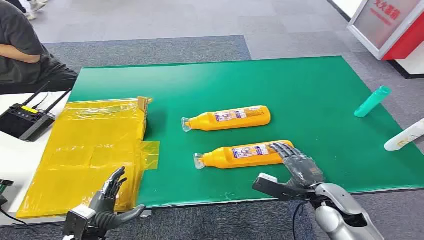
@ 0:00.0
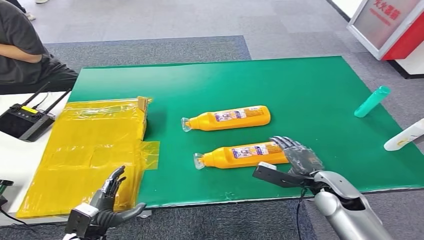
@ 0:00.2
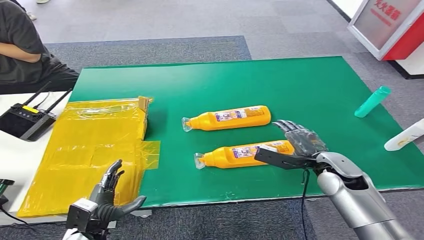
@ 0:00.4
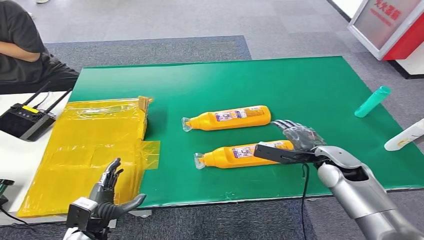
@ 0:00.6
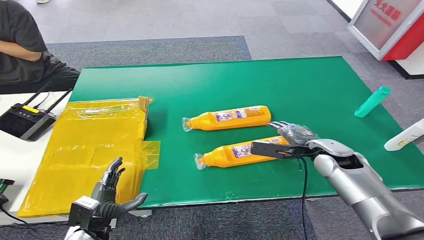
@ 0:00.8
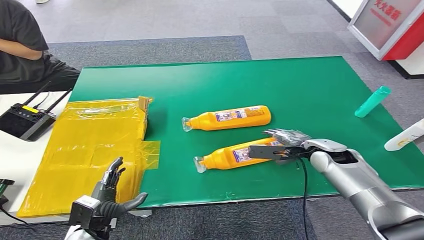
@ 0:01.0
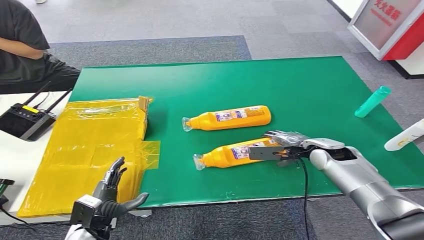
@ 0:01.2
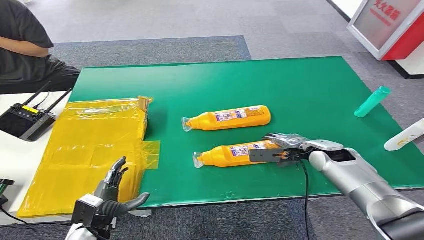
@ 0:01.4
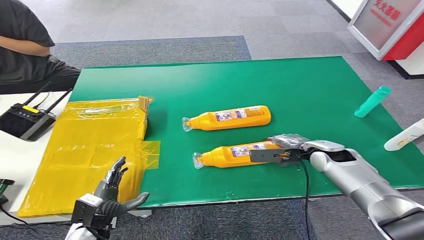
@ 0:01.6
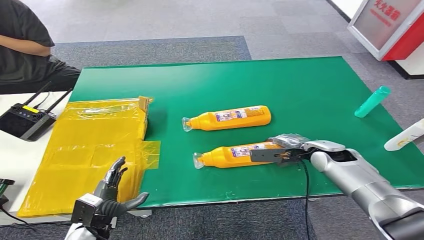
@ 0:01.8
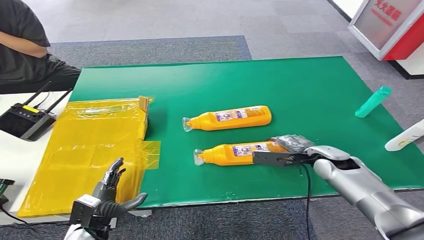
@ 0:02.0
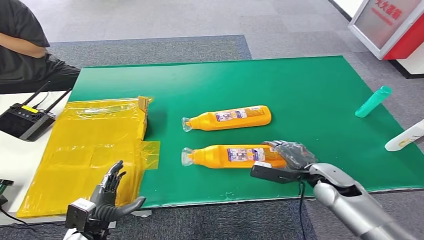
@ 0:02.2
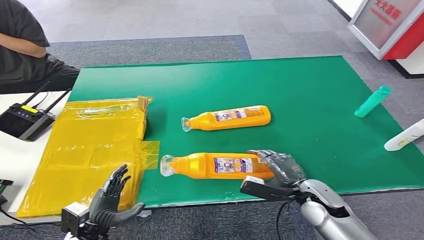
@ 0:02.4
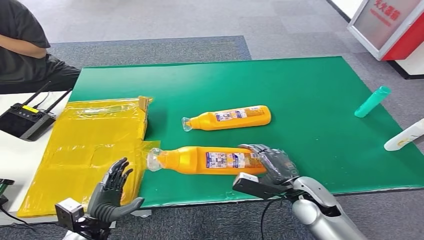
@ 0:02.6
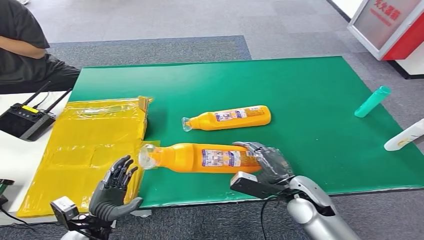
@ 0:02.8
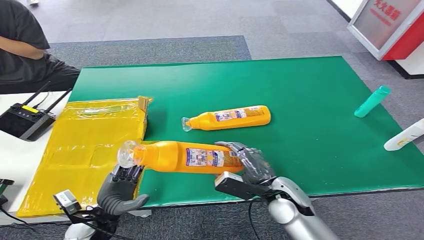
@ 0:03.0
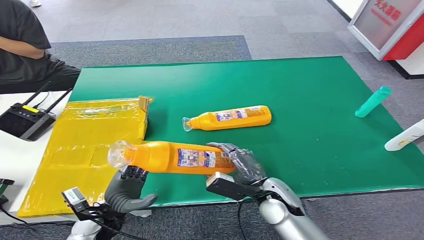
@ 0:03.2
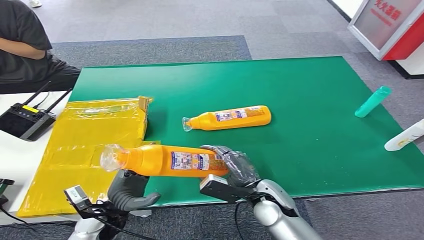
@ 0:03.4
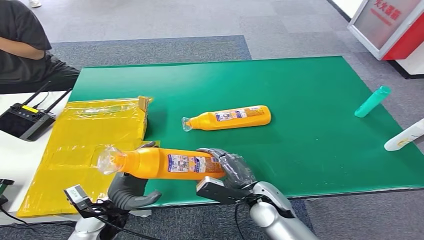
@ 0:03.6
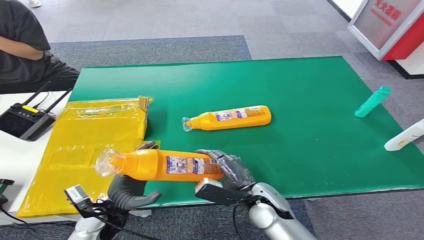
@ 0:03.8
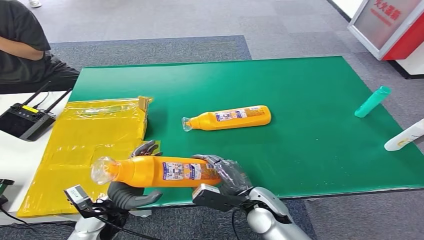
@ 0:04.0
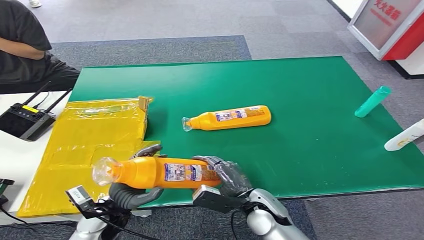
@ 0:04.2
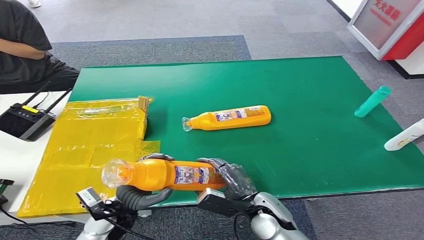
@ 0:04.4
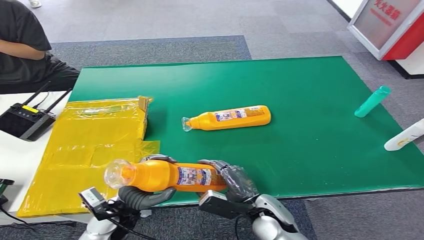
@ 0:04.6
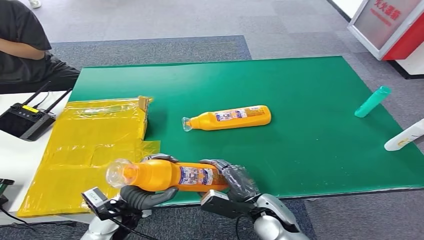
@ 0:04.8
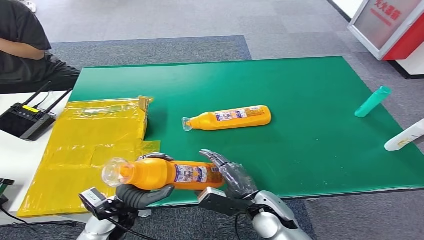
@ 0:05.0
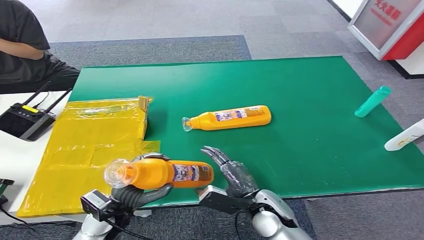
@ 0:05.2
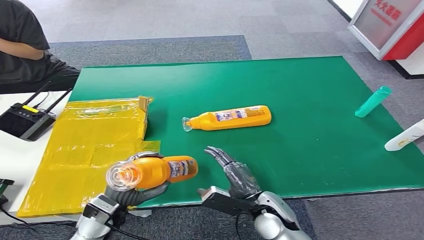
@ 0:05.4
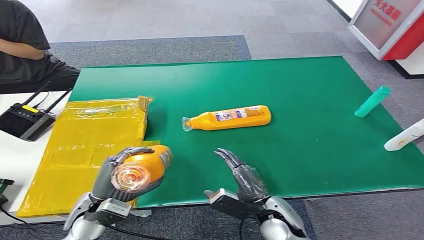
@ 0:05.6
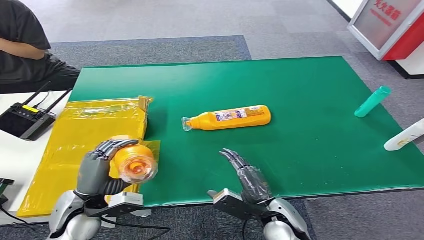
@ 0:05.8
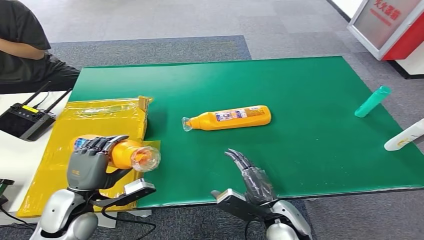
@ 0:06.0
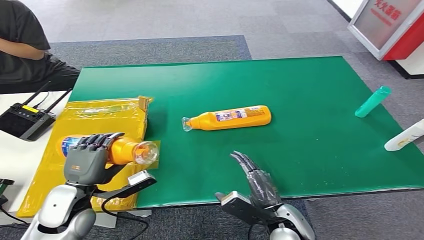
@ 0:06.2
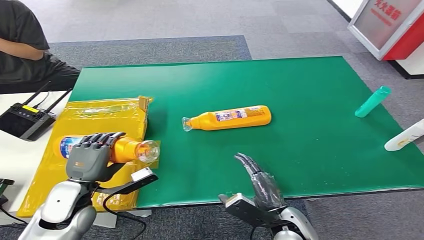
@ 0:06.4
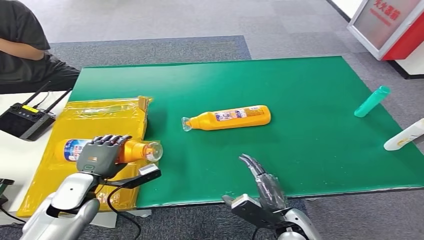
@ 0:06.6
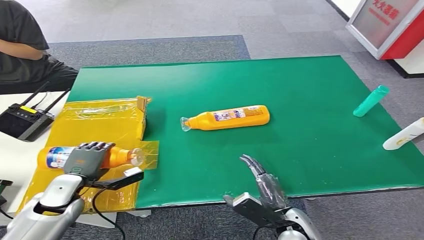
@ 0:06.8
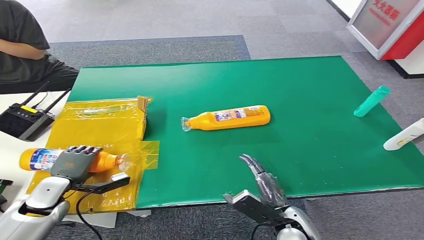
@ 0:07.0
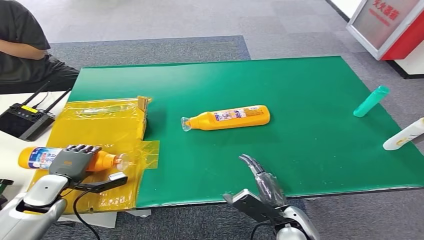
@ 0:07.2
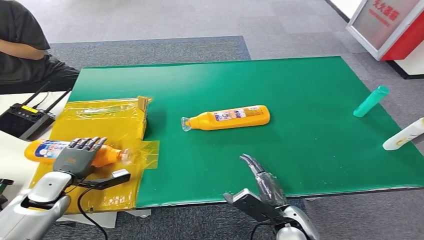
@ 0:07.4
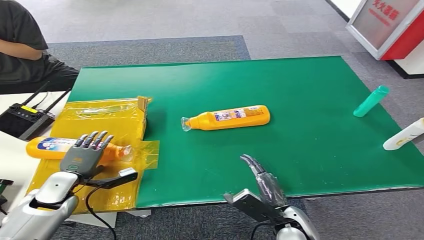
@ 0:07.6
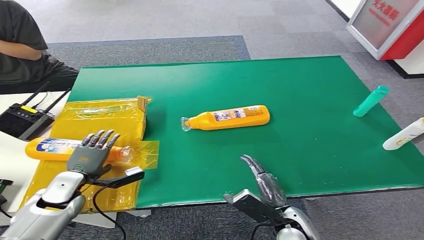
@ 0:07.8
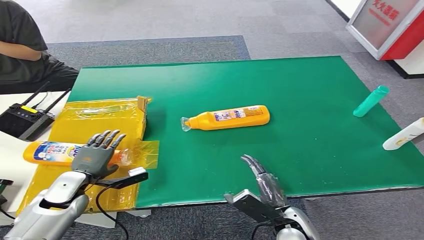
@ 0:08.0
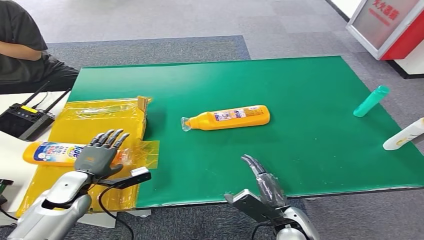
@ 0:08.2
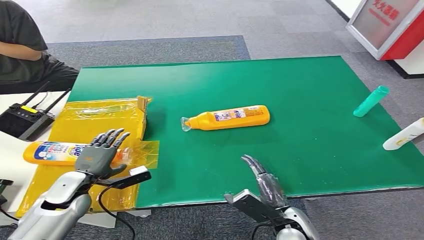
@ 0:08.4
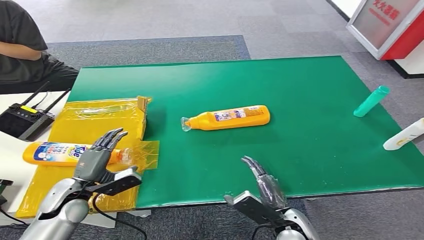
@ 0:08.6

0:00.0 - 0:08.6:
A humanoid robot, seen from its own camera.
Step, 0:00.0 - 0:03.0: Pick up the bottle from the table.
Step, 0:05.4 - 0:08.6: Turn the bottle to the front side.
0:01.4 - 0:02.8: The right hand shifts some 15 cm backward and to the left.
0:02.8 - 0:04.4: The right hand goes about 10 cm to the left. Meanwhile the left hand shifts about 5 cm to the right.
0:04.4 - 0:05.8: The left hand goes some 10 cm upward and to the left.
0:05.8 - 0:07.2: The left hand shifts roughly 15 cm to the left, forward and downward.
0:07.2 - 0:08.6: The left hand moves to the right, roughly 5 cm.
